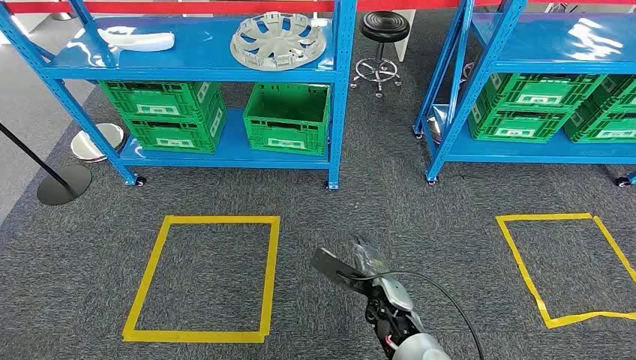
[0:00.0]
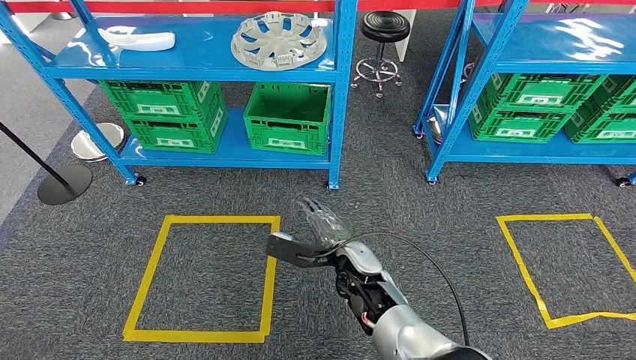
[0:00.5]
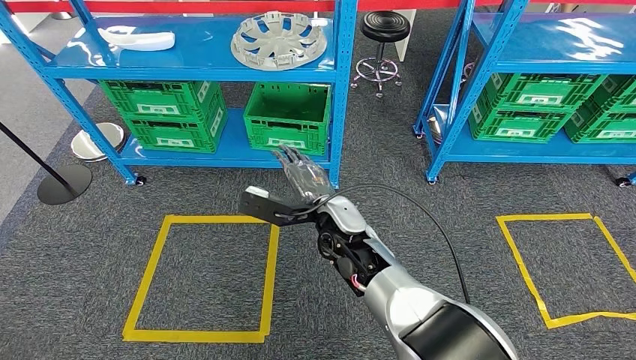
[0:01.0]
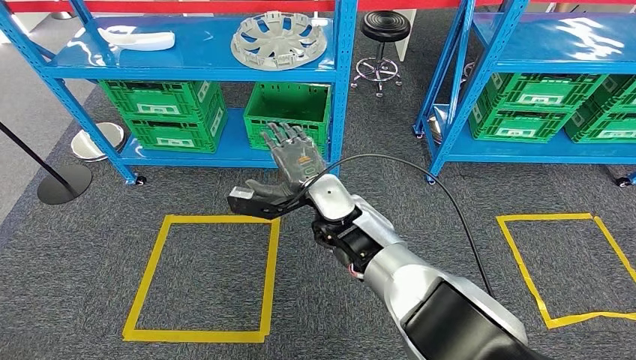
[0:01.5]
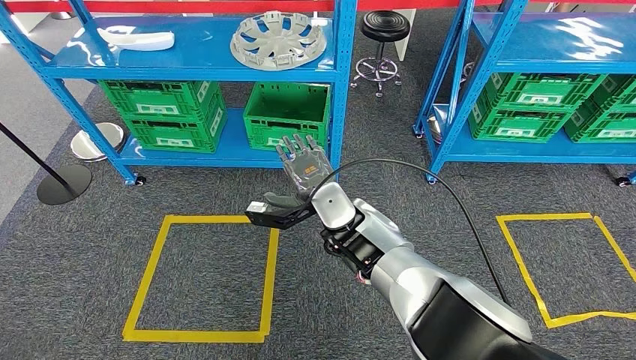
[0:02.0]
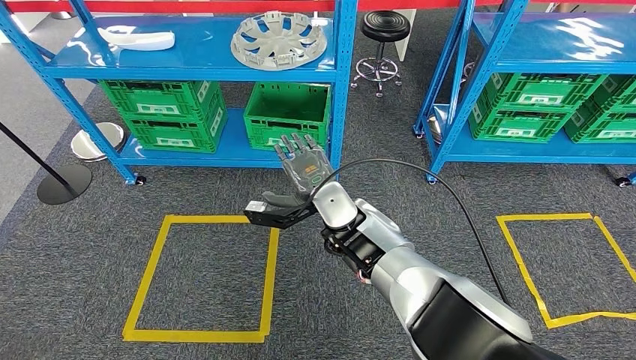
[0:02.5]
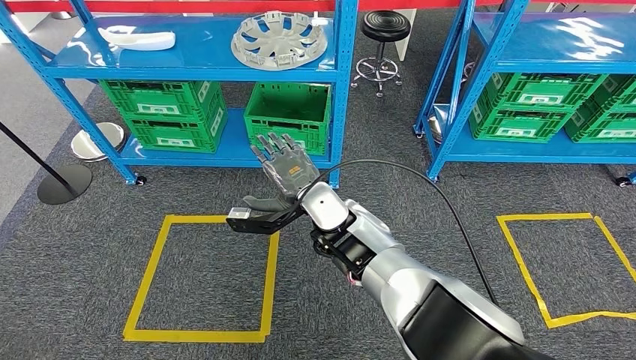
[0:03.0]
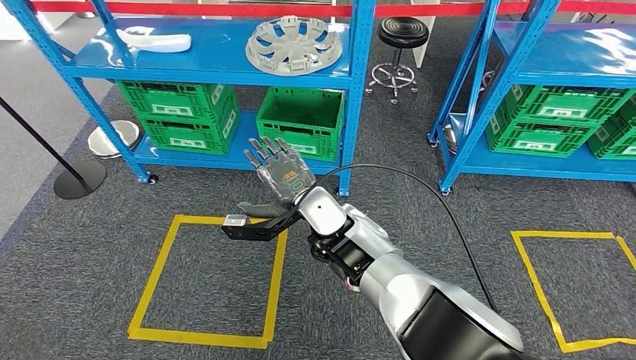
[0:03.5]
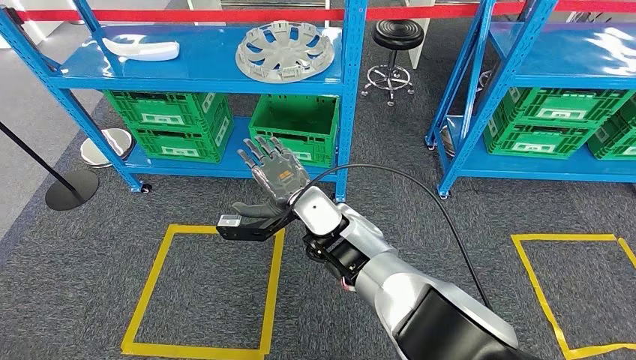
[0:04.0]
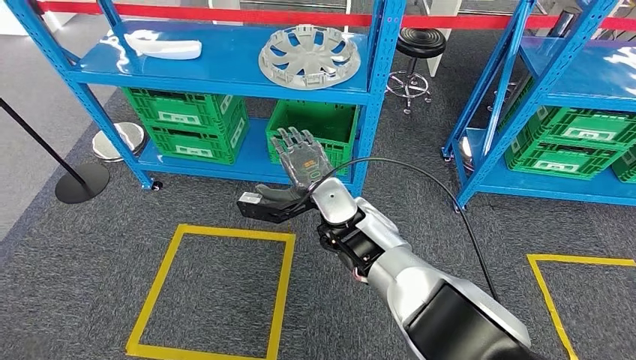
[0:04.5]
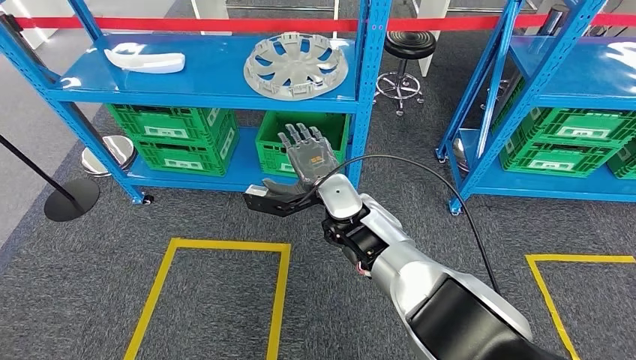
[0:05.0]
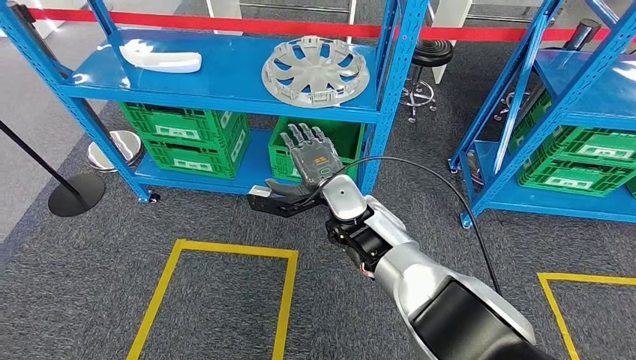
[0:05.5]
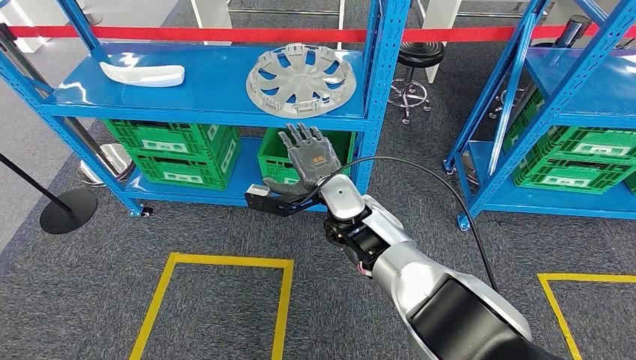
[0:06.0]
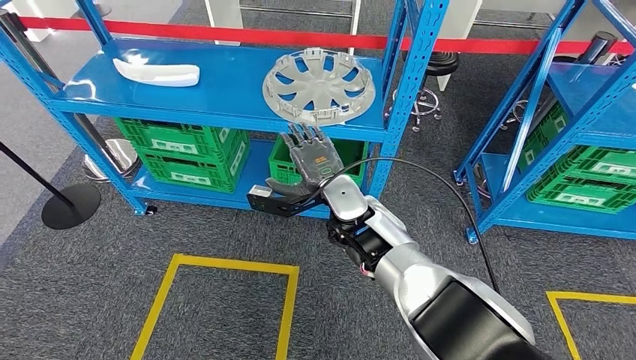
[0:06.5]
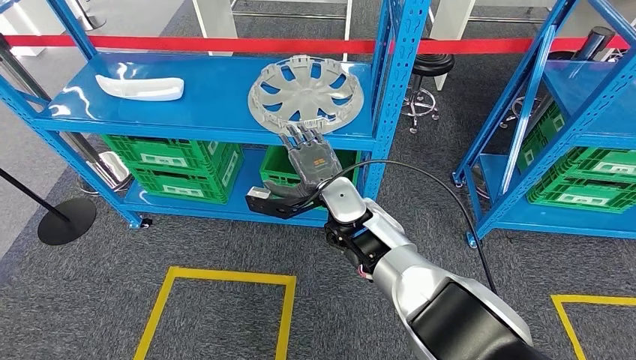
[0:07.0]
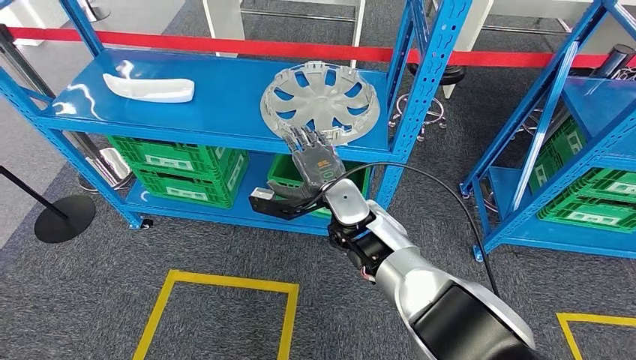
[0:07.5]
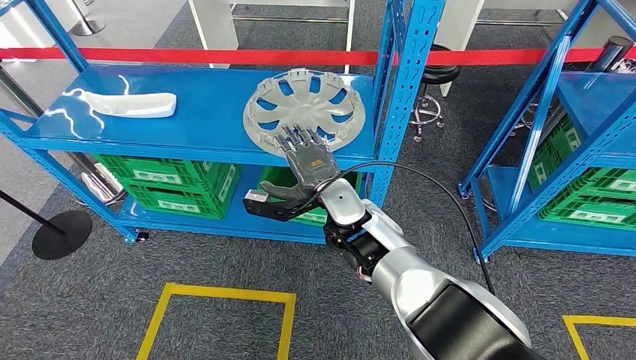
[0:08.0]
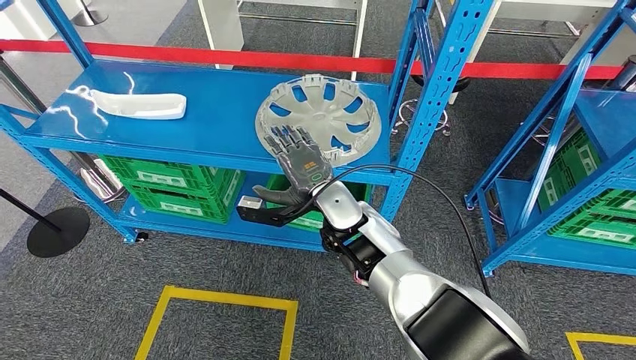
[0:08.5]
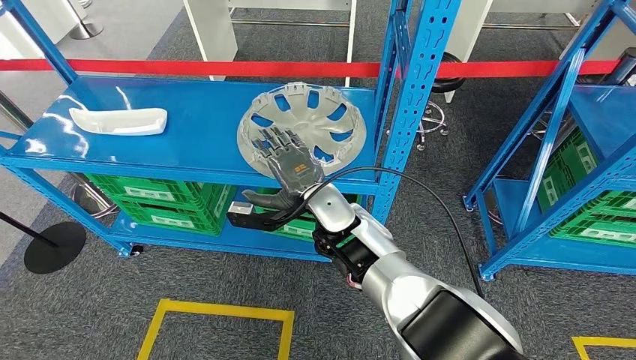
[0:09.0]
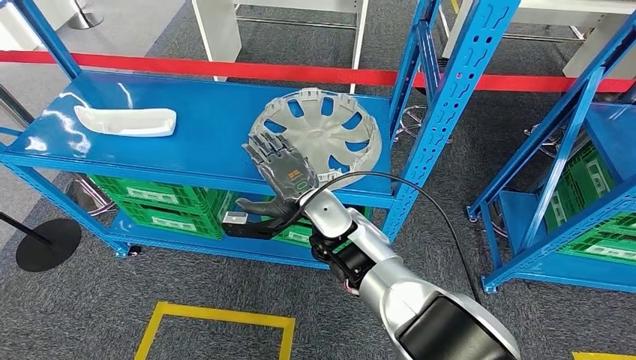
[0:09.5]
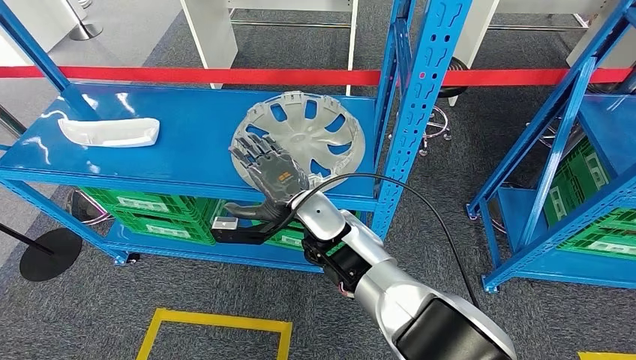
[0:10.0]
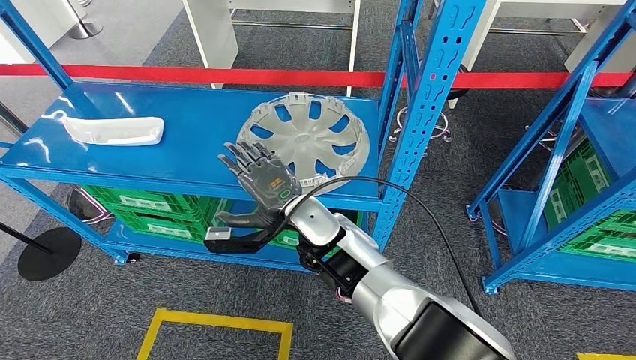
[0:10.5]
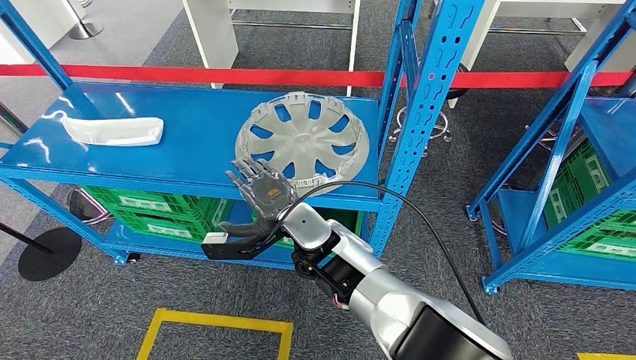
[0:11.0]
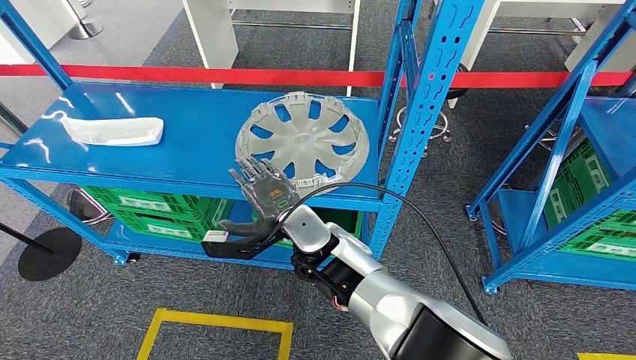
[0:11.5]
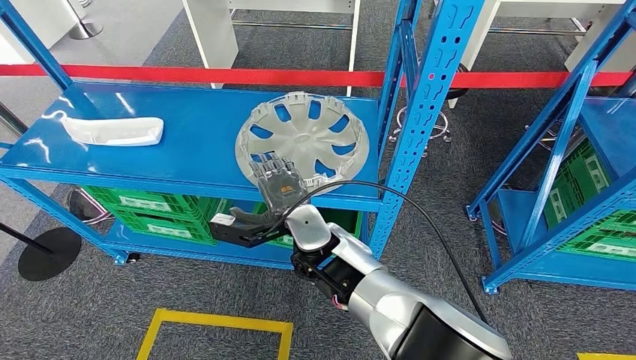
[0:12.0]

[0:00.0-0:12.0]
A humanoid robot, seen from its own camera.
0:10.0 to 0:12.0: There are only small adjustments of the hands.

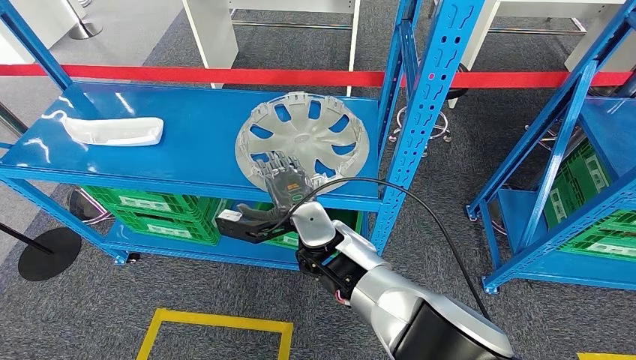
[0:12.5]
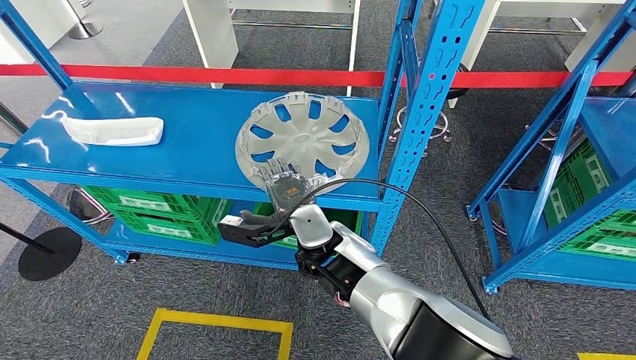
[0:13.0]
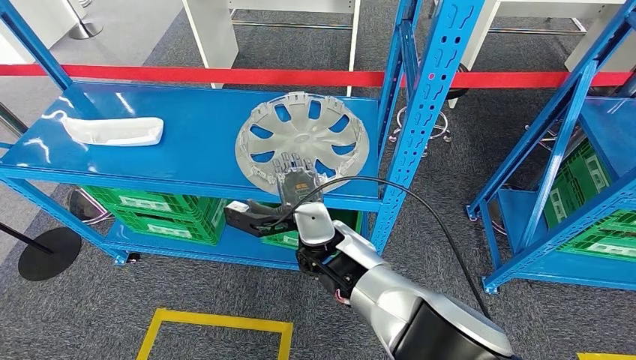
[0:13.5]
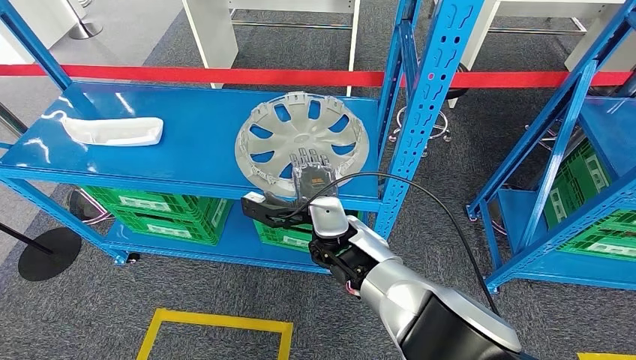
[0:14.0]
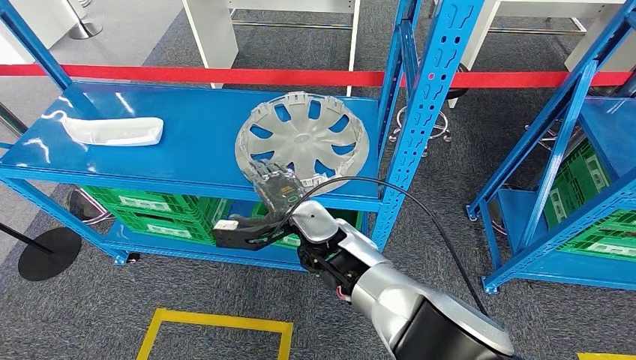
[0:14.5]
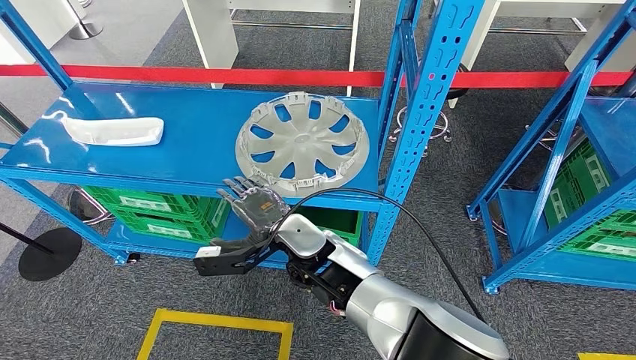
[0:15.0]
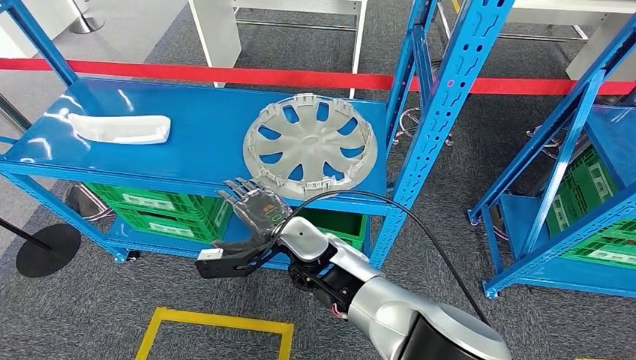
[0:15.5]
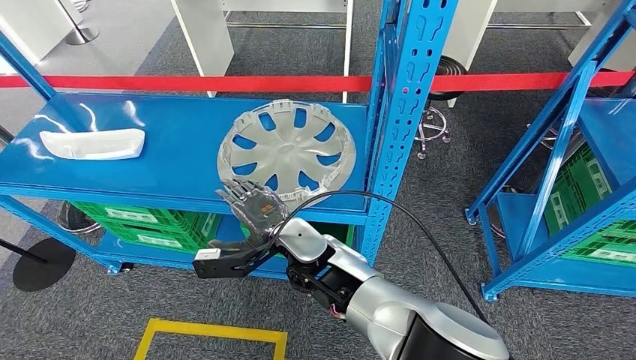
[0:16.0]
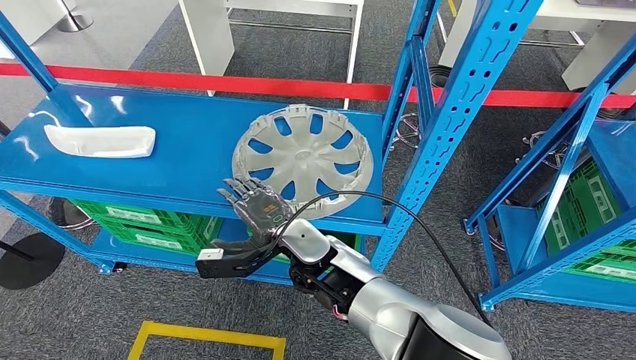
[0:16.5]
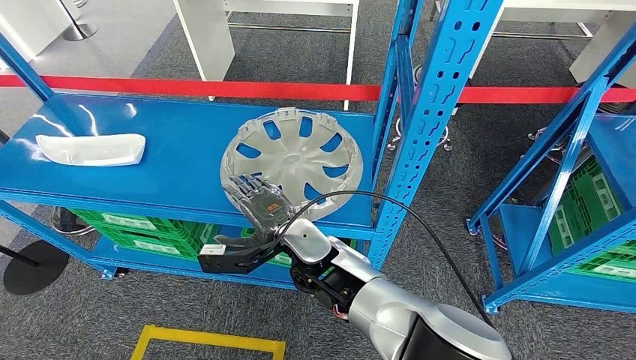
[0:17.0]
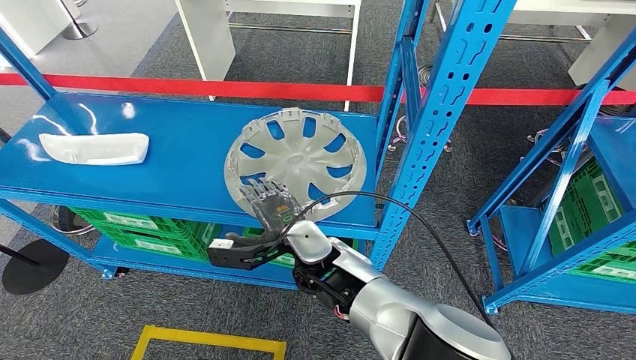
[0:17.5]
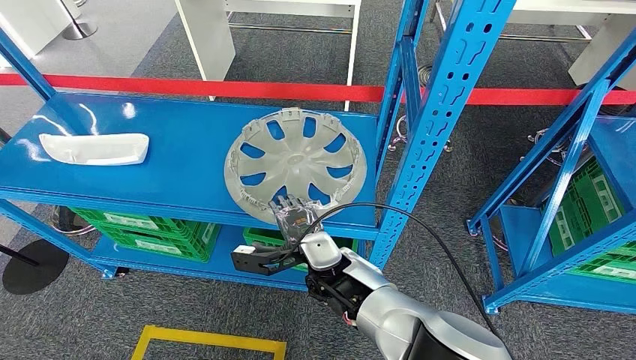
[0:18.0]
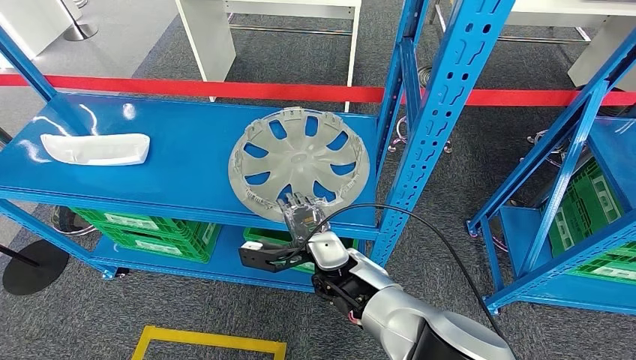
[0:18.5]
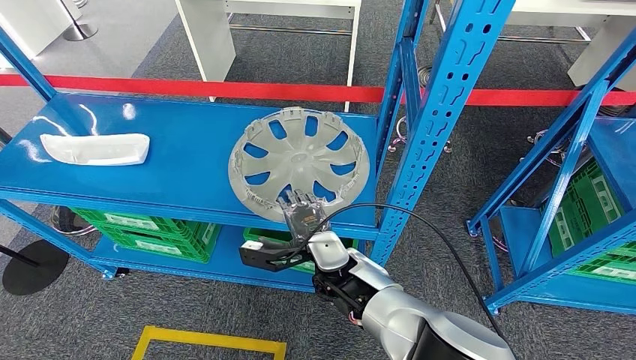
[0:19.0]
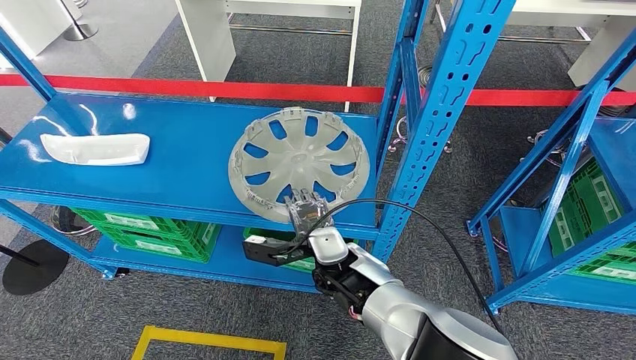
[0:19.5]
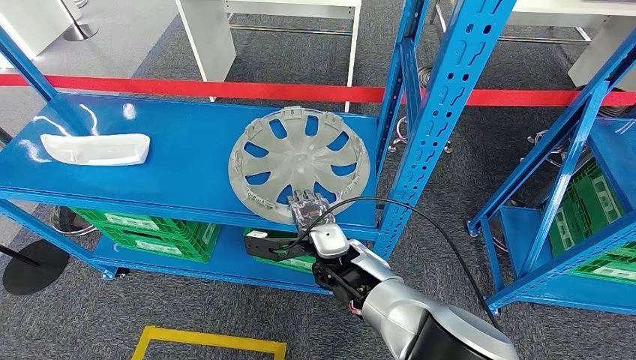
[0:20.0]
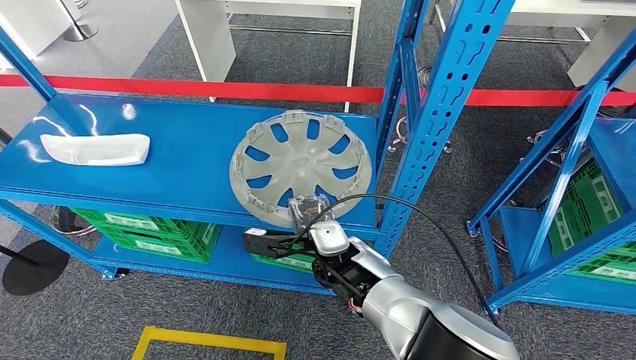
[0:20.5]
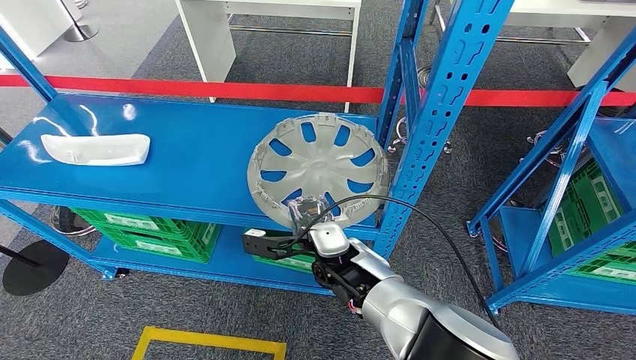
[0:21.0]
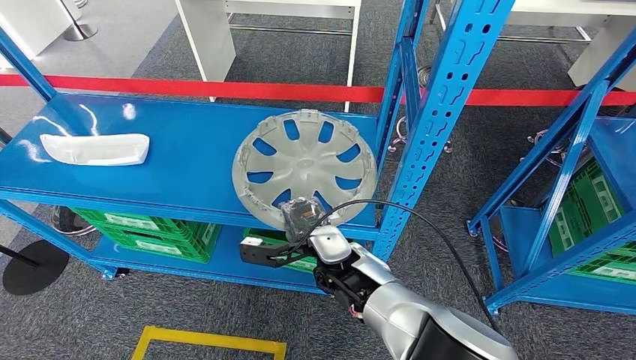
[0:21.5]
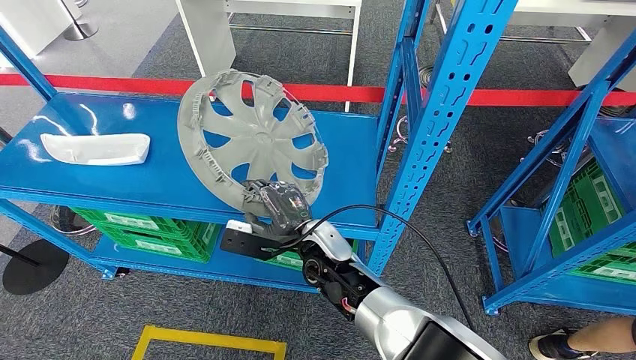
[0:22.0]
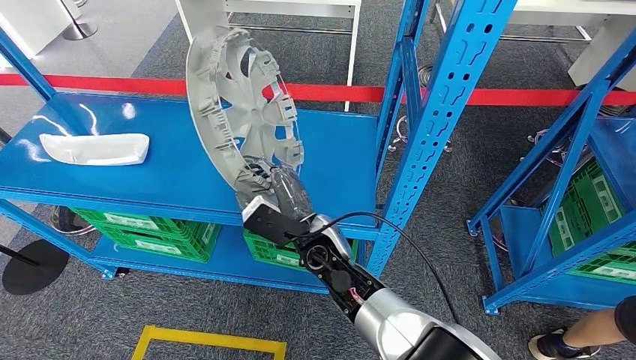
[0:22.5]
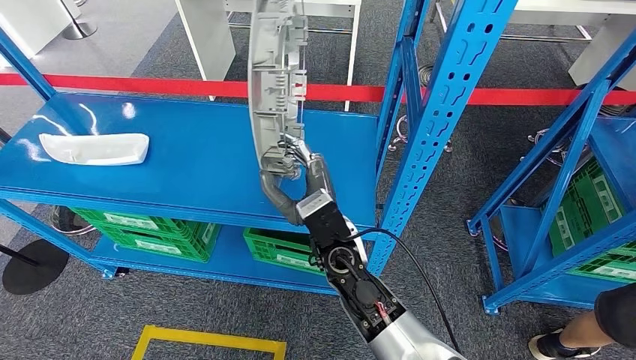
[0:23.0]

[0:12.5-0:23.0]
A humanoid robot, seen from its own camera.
Step, 0:12.5 to 0:23.0: Pick up the large parts from the shelf.
0:12.5 to 0:14.5: The hands make only small movements.
0:19.0 to 0:21.0: There are only small adjustments of the hands.
